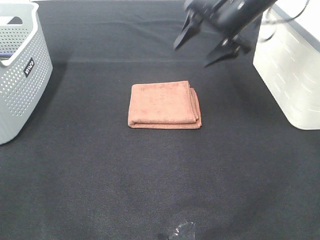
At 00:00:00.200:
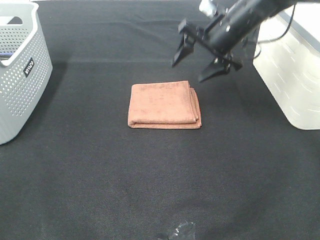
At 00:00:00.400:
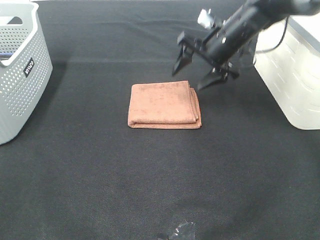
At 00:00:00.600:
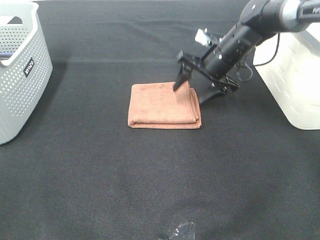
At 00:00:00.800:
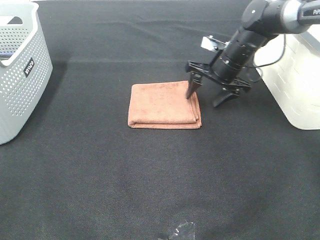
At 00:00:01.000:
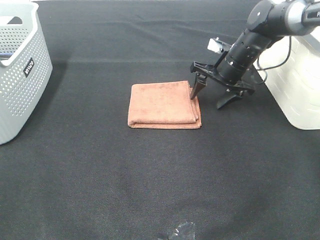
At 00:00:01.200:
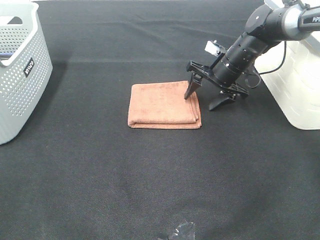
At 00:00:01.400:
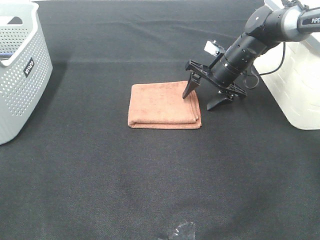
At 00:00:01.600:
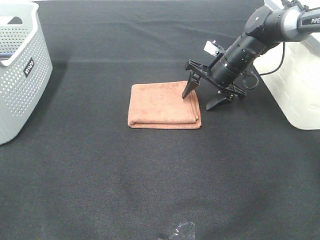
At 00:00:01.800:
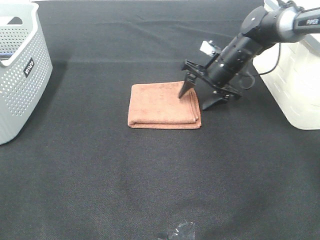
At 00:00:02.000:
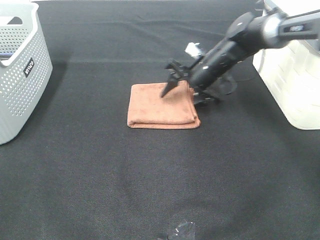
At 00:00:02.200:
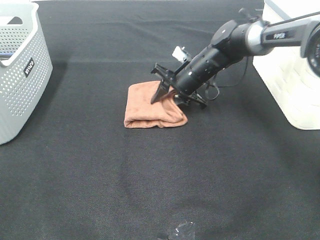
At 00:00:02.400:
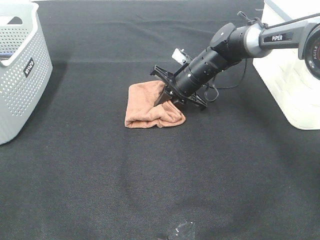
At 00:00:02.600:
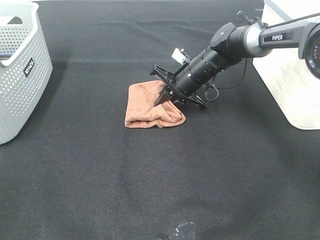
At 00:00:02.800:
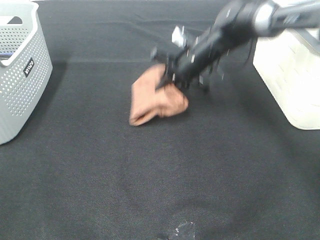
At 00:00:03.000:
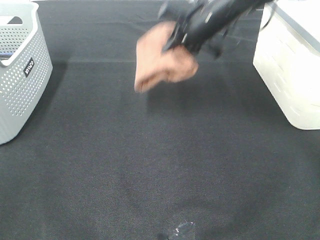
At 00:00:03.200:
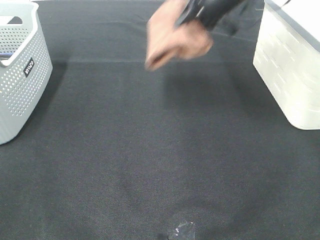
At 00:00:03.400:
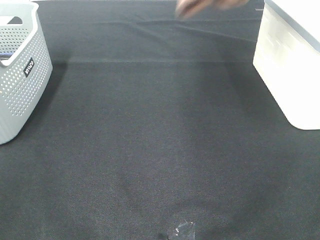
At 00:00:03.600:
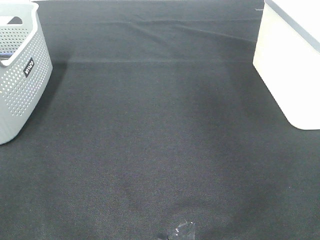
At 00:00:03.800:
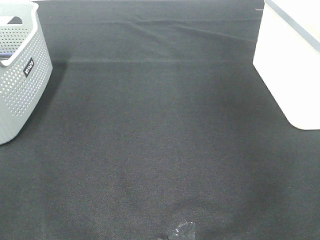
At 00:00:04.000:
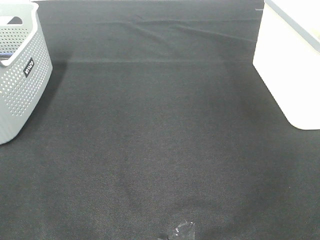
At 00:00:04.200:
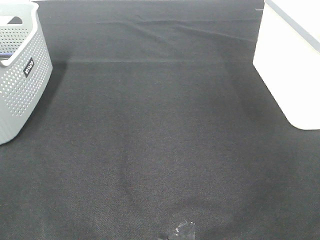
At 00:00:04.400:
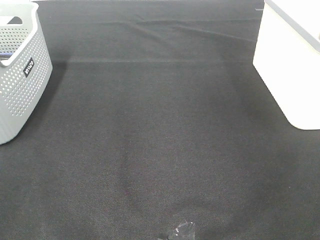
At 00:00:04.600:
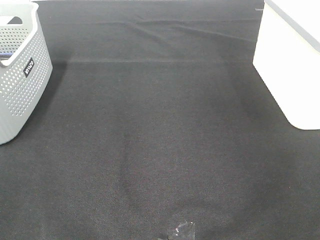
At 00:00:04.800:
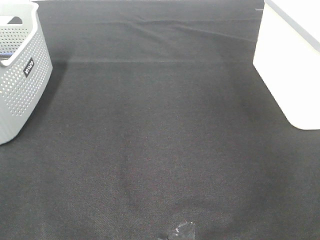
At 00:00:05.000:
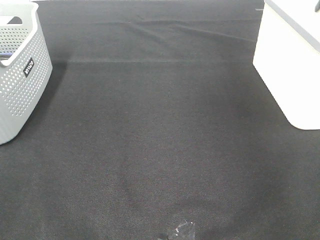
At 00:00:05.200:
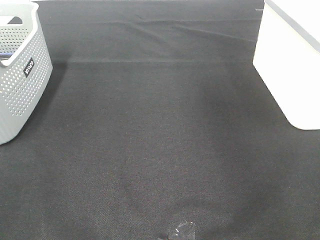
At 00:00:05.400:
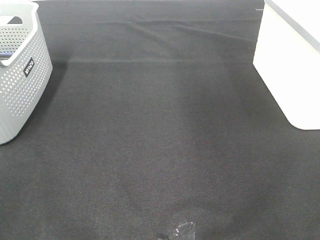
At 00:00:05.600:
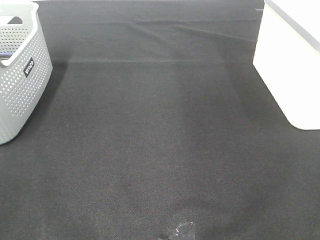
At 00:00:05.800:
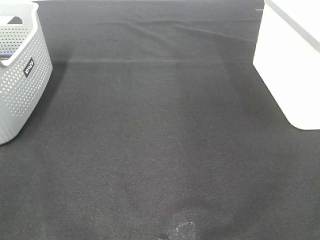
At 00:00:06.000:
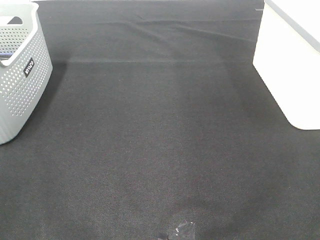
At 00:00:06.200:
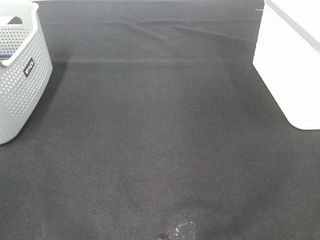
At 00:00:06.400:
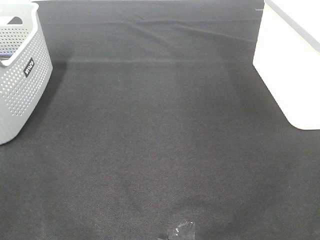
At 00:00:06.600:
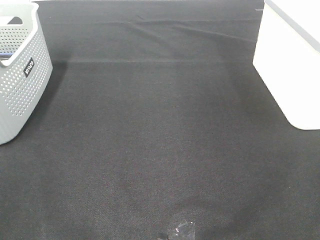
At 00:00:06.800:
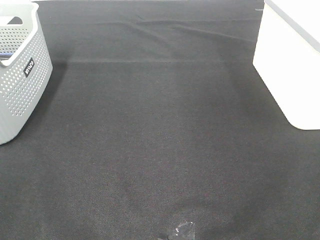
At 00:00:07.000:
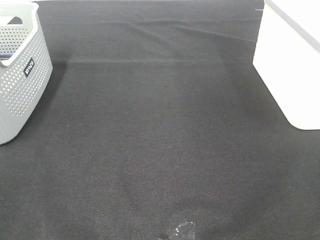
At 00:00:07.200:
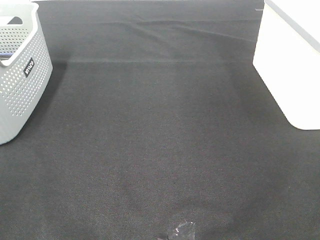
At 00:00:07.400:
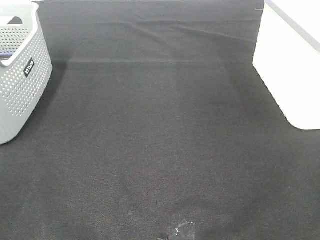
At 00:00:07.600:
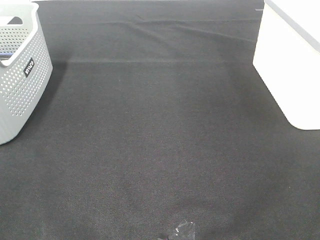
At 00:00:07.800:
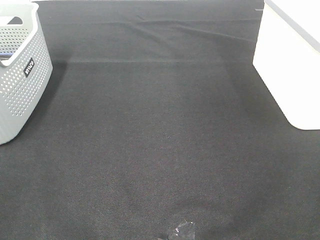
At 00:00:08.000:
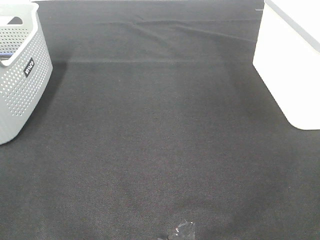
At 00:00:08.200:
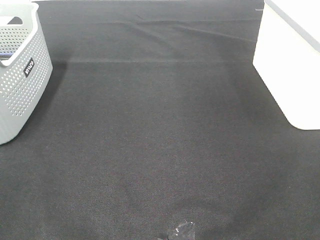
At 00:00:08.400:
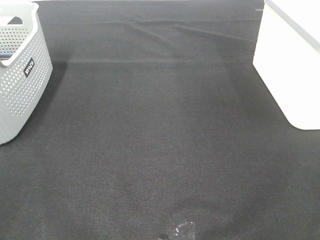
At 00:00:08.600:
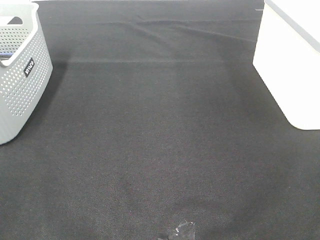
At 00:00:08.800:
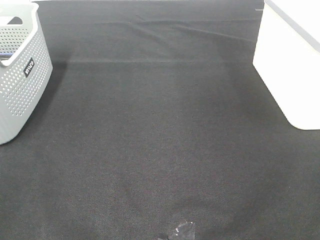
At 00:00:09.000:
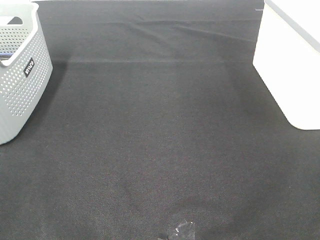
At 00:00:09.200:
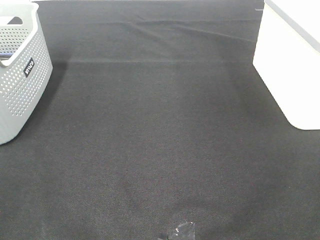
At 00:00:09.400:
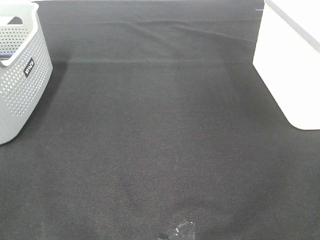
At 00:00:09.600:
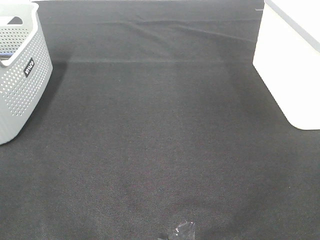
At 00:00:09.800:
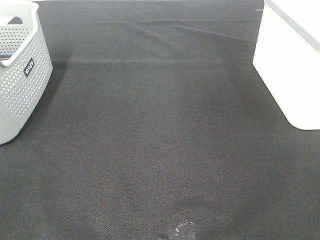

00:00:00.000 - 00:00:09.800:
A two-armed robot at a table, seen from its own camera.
Step, 00:00:00.000 - 00:00:02.200: Right hand: grab the folded brown towel.
Step, 00:00:02.400 - 00:00:04.800: Right hand: place the brown towel in right basket.
00:00:00.000 - 00:00:01.400: The right gripper heads downward, covering about 15 cm.
00:00:01.400 - 00:00:02.800: The right gripper heads to the left, covering approximately 5 cm, and closes its fingers.
00:00:02.800 - 00:00:04.200: The right gripper goes approximately 40 cm to the right and upward.
00:00:08.400 - 00:00:09.800: Neither gripper changes place.

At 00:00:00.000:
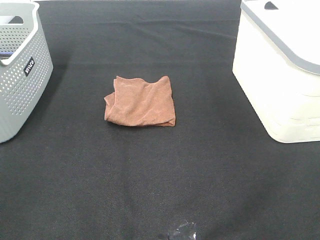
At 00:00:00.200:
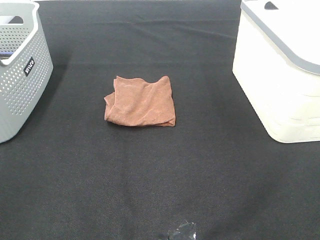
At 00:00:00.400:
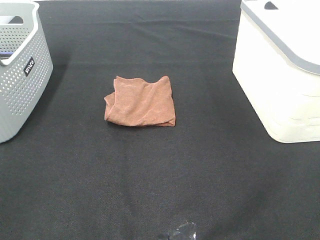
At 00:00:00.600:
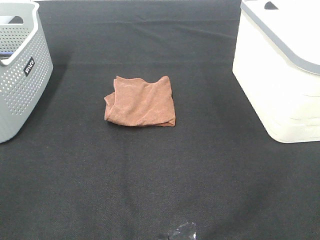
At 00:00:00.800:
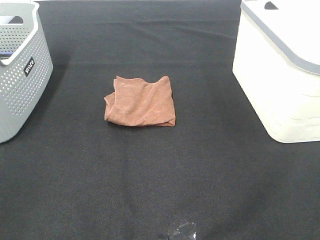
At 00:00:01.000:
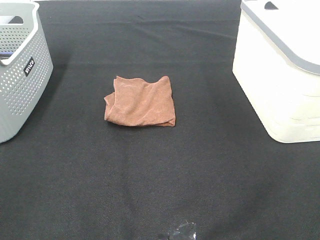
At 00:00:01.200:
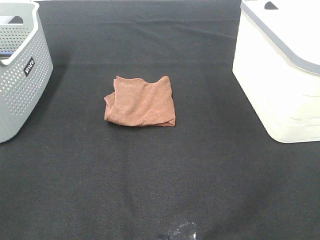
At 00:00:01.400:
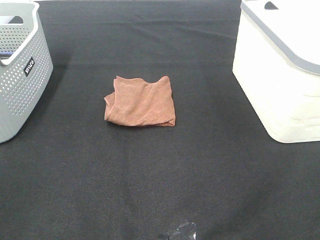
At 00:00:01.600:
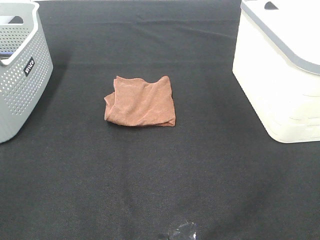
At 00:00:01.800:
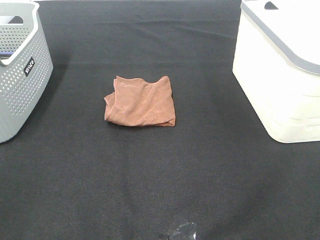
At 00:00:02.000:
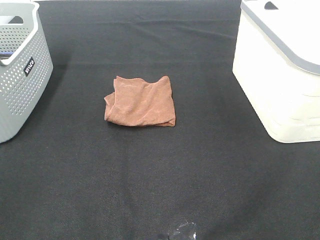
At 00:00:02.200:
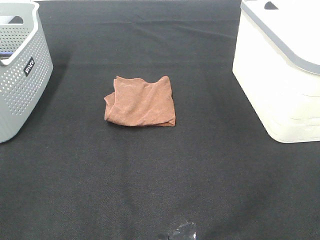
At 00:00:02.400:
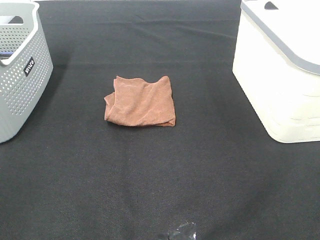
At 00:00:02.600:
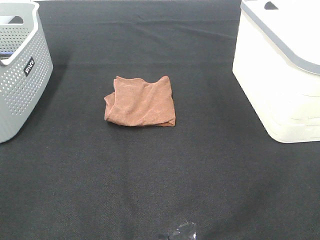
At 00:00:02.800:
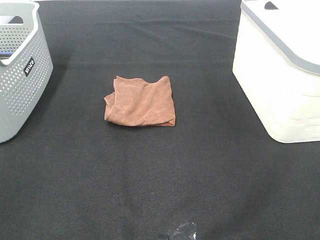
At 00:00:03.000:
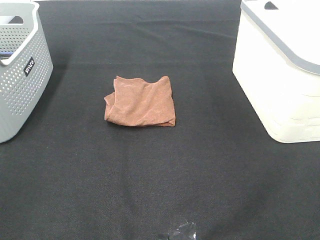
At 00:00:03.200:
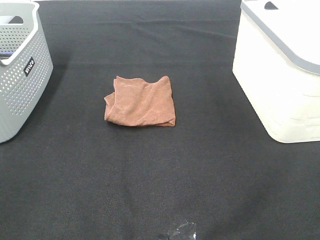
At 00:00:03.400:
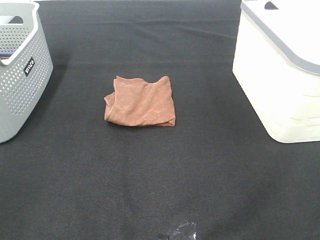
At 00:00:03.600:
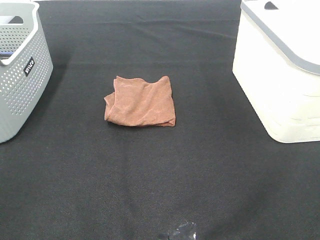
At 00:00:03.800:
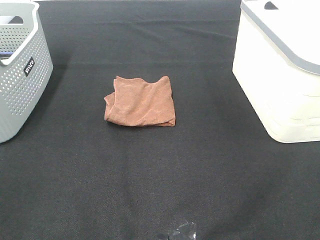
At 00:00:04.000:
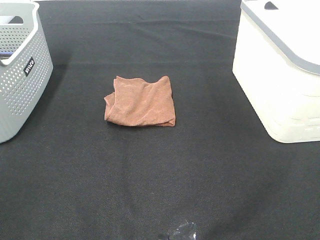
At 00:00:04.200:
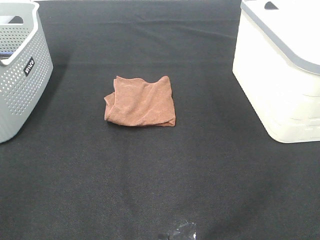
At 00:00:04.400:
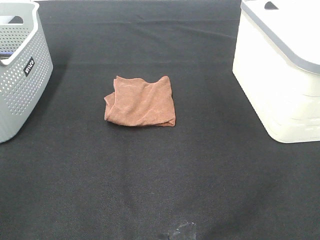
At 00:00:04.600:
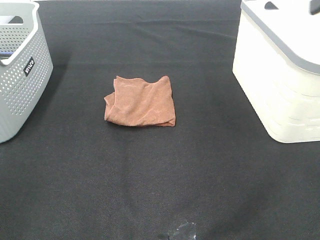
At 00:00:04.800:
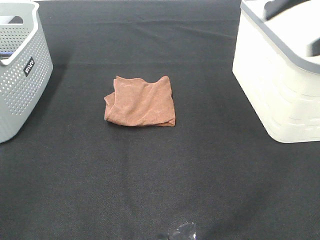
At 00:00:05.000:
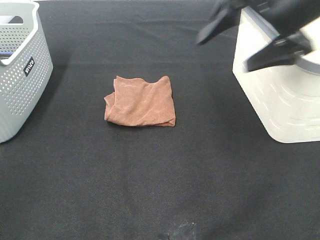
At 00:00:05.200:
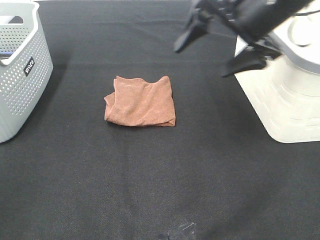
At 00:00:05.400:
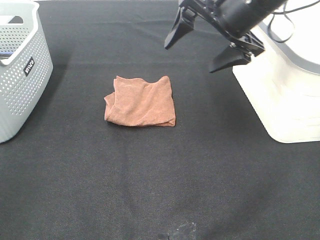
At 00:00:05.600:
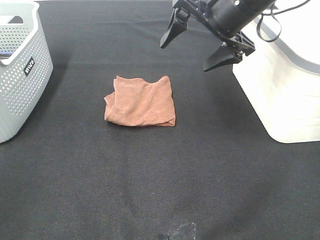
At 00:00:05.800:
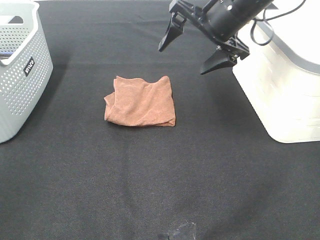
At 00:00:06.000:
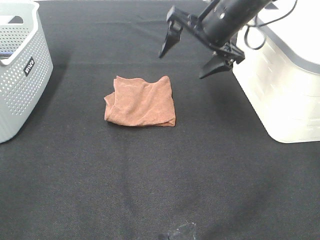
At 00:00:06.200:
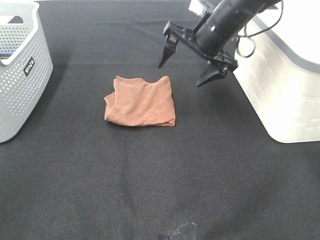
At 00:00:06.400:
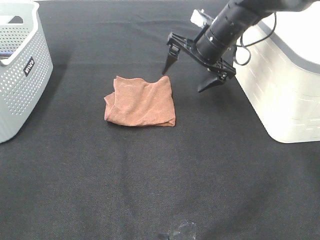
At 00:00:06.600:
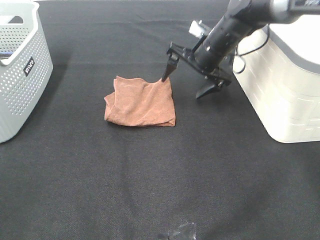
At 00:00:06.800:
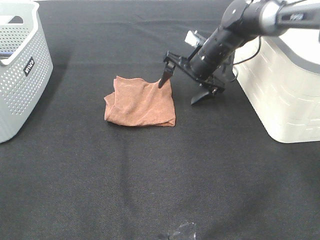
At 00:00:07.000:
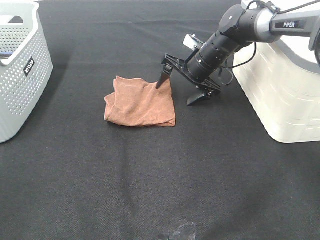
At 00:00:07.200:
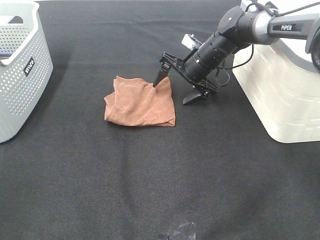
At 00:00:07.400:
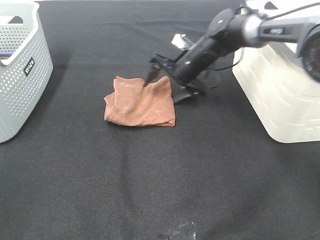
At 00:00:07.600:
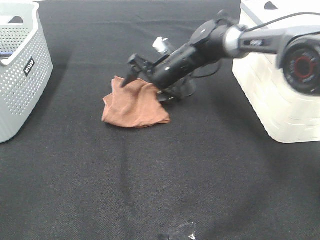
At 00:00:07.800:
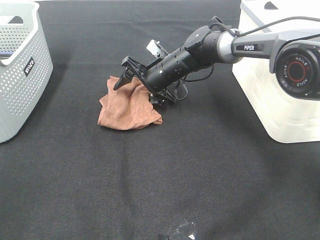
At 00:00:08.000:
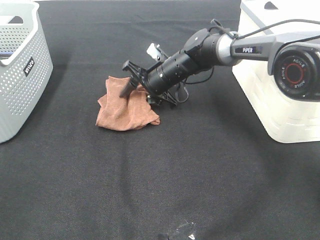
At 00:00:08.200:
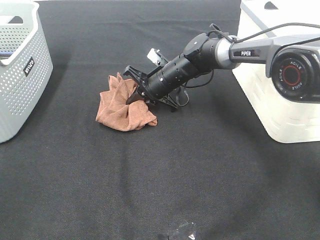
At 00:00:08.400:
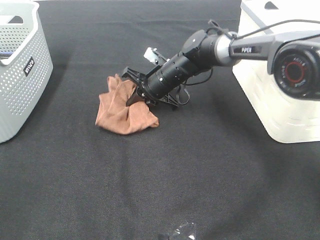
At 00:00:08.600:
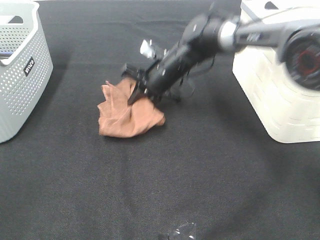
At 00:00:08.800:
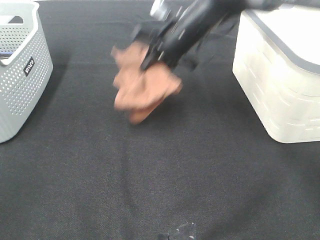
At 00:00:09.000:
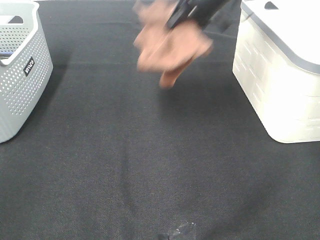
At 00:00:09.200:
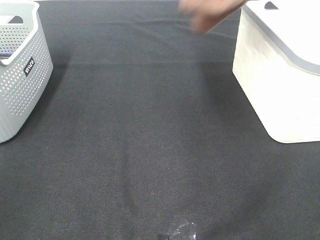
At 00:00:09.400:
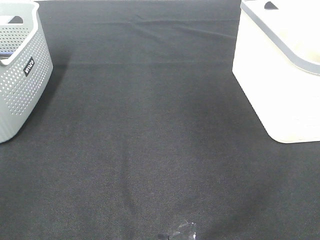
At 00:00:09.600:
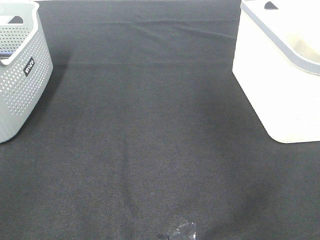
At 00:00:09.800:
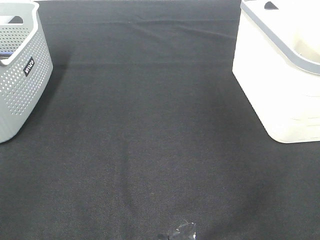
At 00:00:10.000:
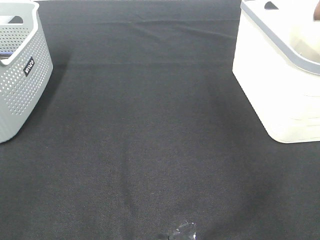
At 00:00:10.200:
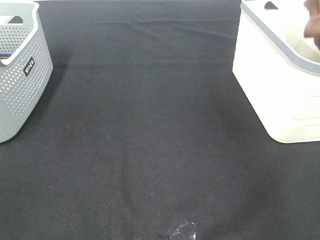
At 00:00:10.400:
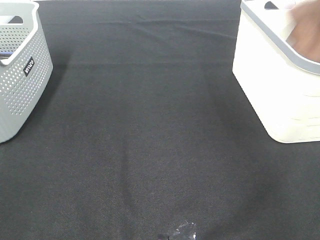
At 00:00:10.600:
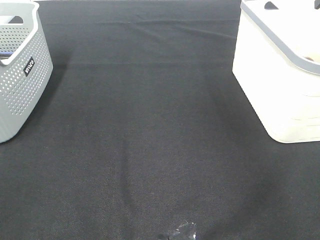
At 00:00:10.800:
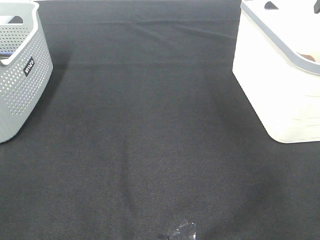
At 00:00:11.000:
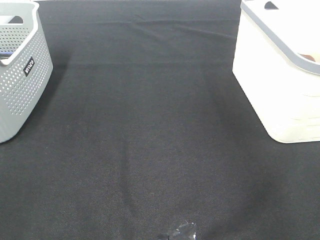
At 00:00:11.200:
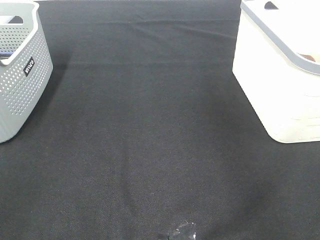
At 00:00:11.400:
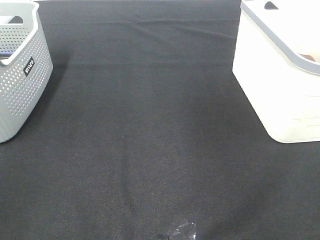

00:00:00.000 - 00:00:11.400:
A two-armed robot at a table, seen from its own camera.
Step, 00:00:00.000 - 00:00:08.200: Right hand: grab the folded brown towel.
Step, 00:00:08.400 - 00:00:10.600: Right hand: place the brown towel in right basket.
00:00:00.000 - 00:00:02.800: Both grippers stay put.
00:00:04.200 - 00:00:05.600: The right gripper shifts about 30 cm forward, to the left and downward.
00:00:05.600 - 00:00:07.200: The right gripper shifts about 20 cm downward and forward.
00:00:07.200 - 00:00:08.600: The right gripper travels to the left by roughly 5 cm, and closes up.
00:00:08.600 - 00:00:10.000: The right gripper shifts about 40 cm to the right and upward.
